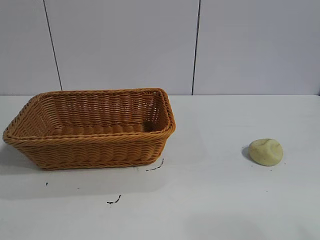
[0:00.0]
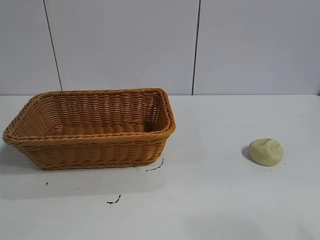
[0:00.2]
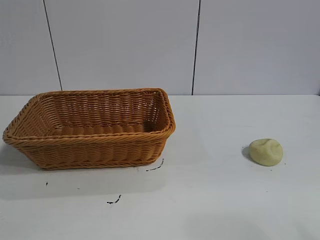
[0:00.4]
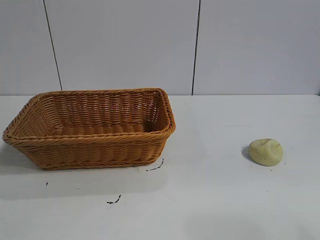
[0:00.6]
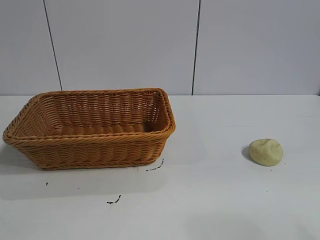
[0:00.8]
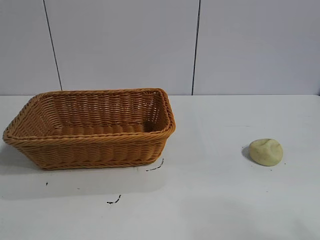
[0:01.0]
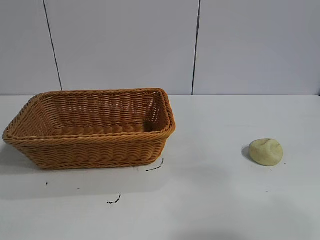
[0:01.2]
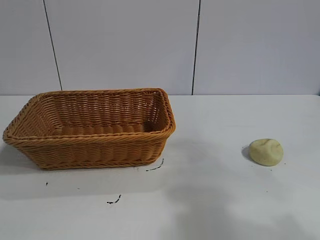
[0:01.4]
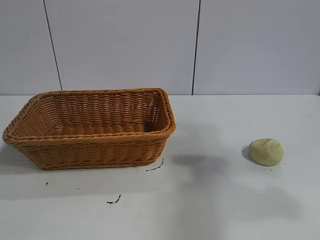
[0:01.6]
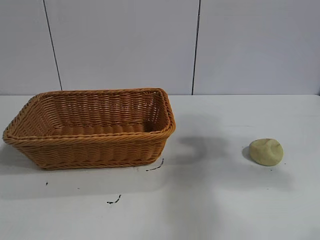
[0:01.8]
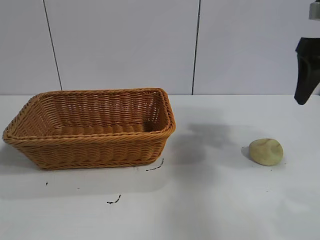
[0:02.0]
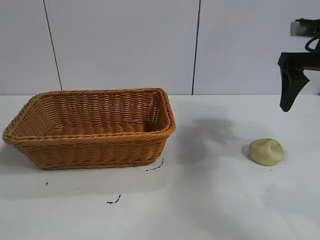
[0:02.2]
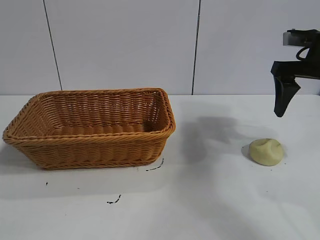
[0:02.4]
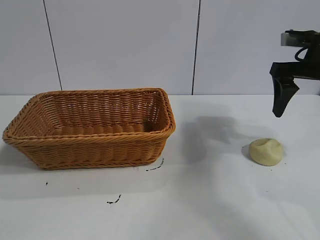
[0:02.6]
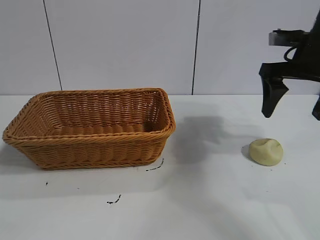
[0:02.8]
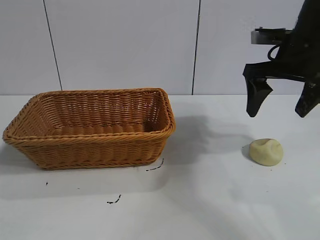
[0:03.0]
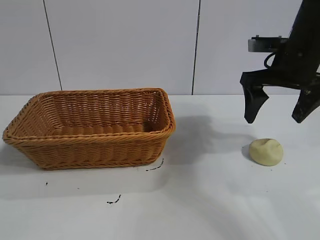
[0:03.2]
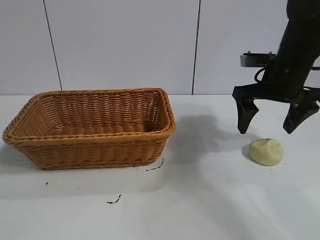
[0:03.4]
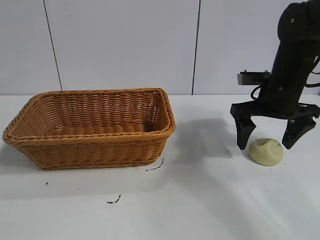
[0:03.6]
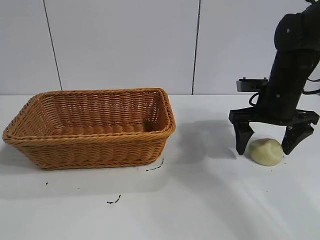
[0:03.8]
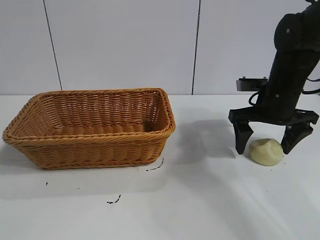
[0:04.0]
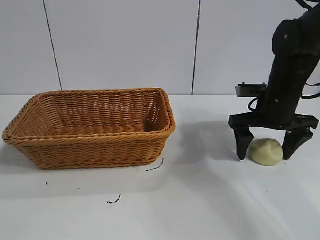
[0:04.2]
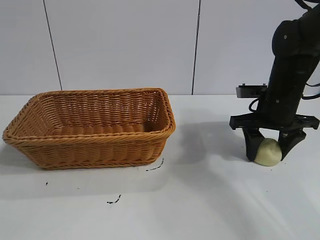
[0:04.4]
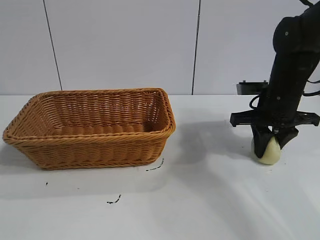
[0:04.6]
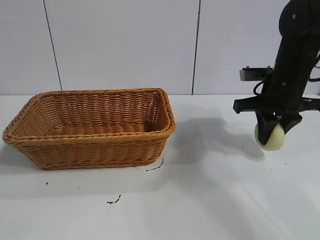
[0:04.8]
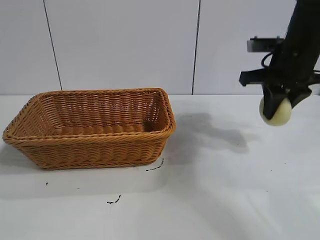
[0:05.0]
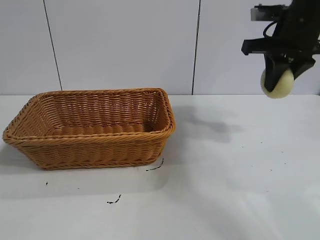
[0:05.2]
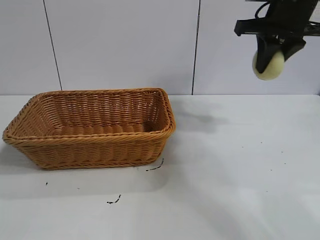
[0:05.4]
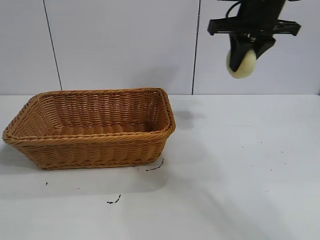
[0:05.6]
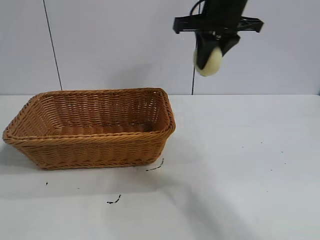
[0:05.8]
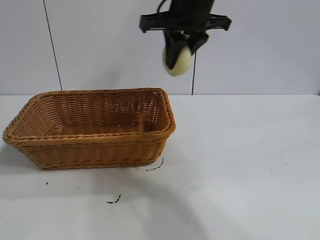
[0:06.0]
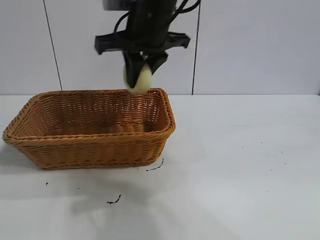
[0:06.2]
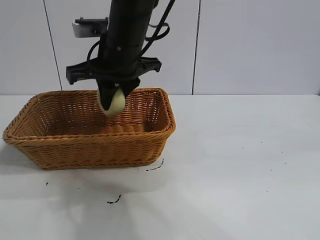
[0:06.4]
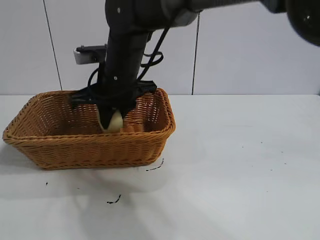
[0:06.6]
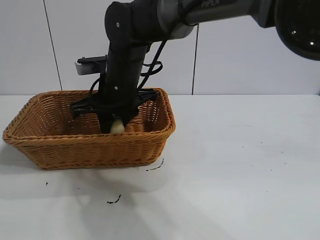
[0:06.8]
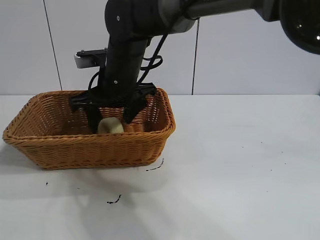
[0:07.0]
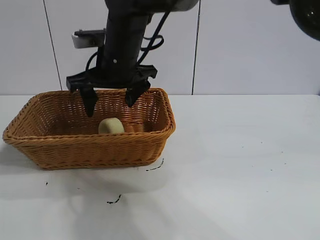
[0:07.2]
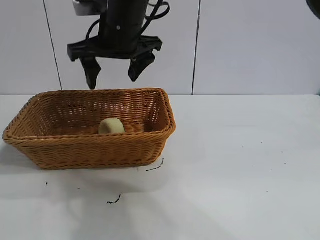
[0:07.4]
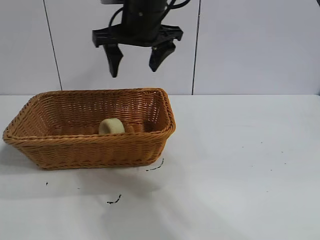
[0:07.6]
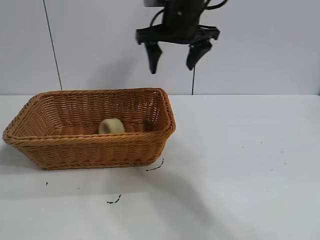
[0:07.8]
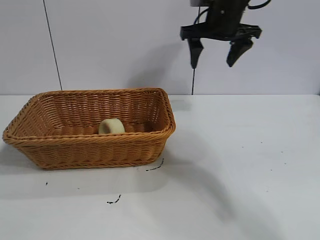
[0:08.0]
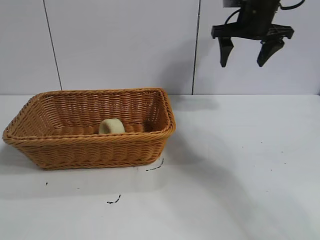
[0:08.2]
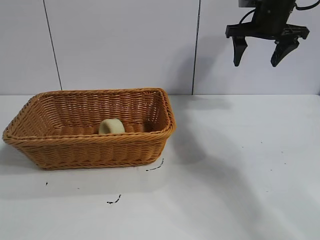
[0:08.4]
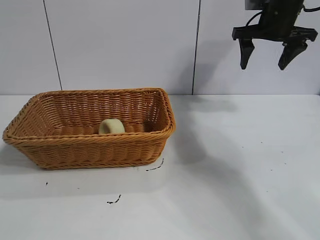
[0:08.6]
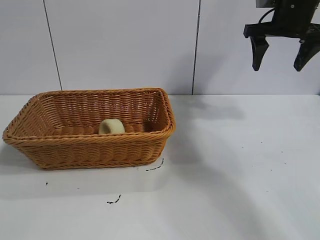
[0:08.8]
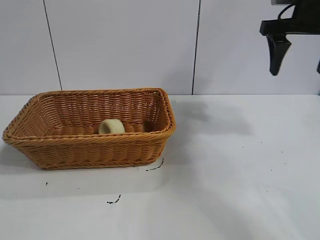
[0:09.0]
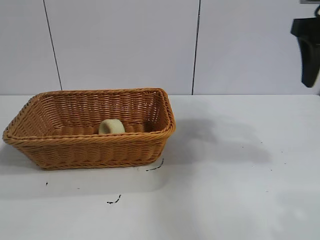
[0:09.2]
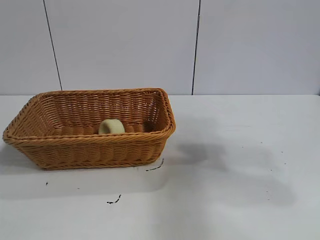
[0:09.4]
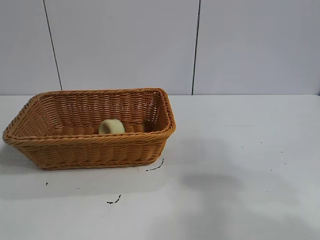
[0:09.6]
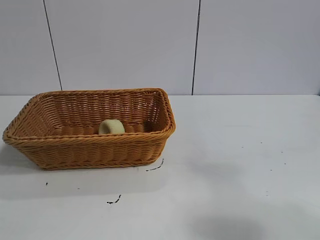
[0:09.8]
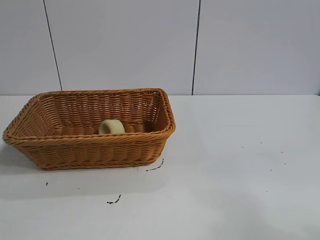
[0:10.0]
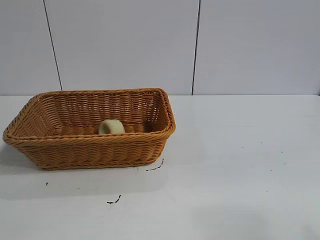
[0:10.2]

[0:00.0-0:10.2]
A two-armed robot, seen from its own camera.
Task of the whole recording: pick up the egg yolk pastry and put it into the basket.
Step, 0.8 to 4.4 s: Grasp egg yolk pastry with right gripper.
Step, 4.8 to 7.2 s: Place the egg yolk pastry in the basket with right gripper.

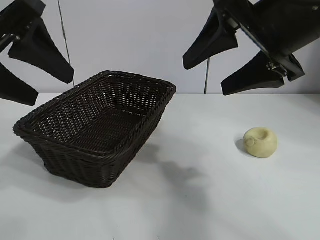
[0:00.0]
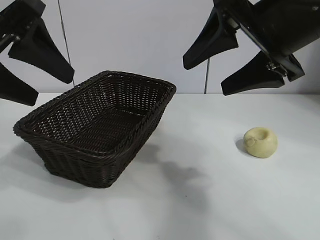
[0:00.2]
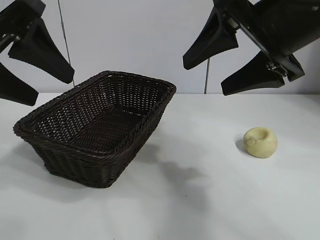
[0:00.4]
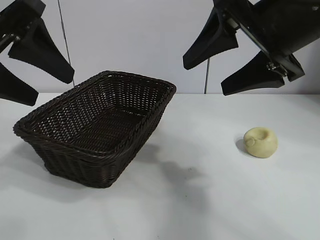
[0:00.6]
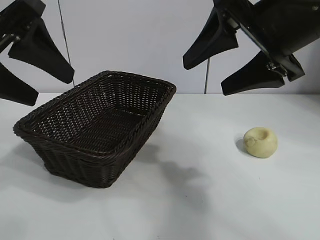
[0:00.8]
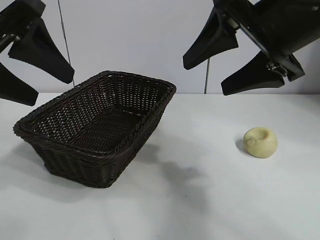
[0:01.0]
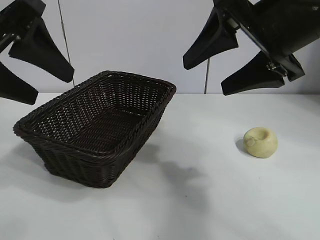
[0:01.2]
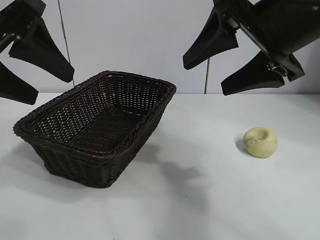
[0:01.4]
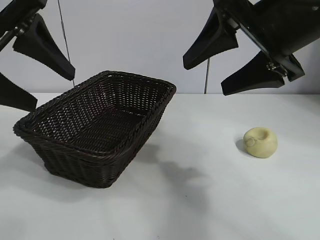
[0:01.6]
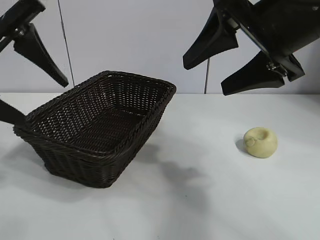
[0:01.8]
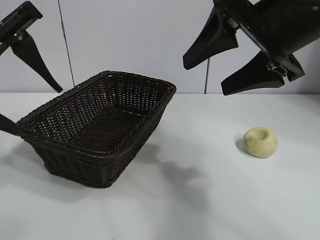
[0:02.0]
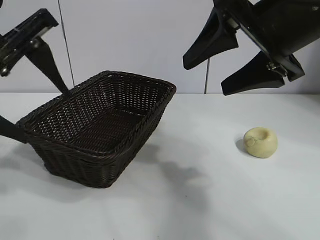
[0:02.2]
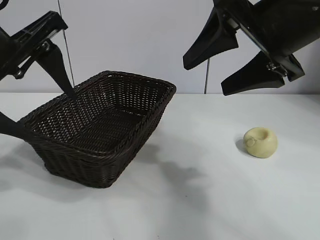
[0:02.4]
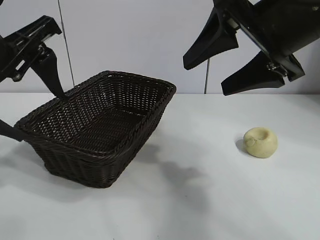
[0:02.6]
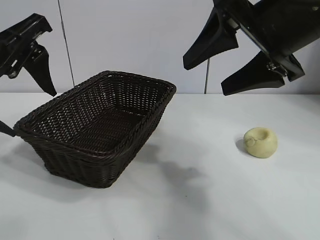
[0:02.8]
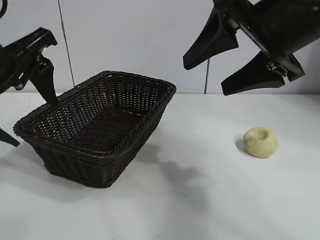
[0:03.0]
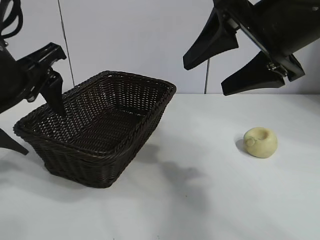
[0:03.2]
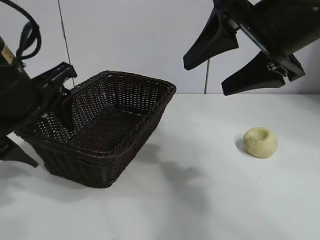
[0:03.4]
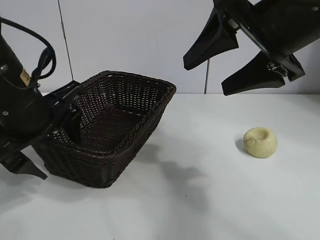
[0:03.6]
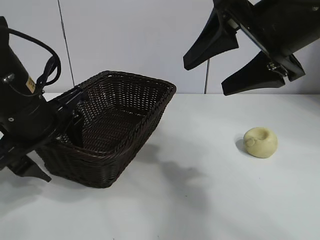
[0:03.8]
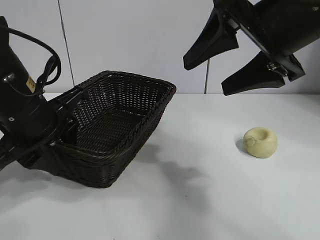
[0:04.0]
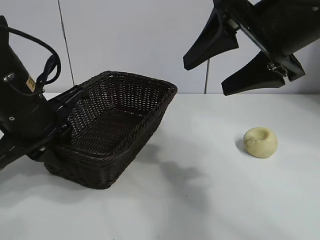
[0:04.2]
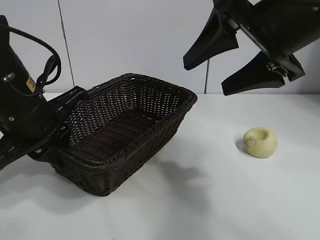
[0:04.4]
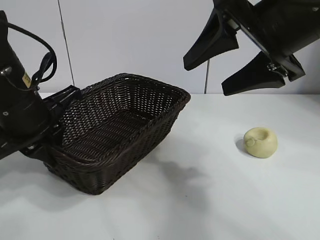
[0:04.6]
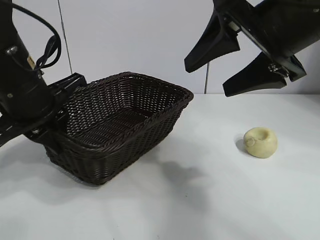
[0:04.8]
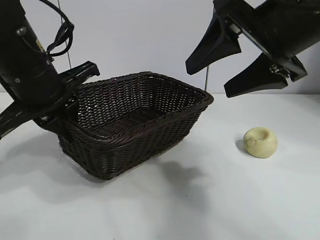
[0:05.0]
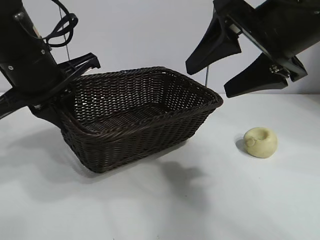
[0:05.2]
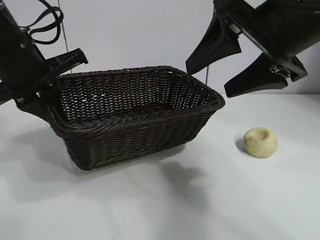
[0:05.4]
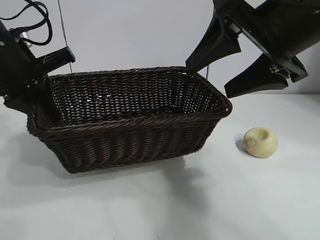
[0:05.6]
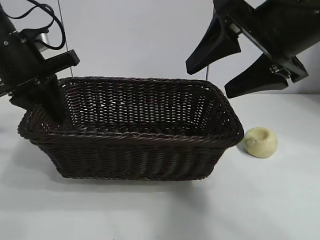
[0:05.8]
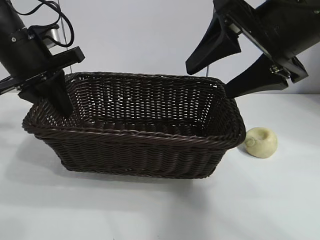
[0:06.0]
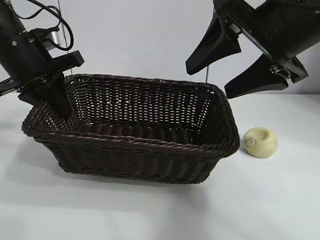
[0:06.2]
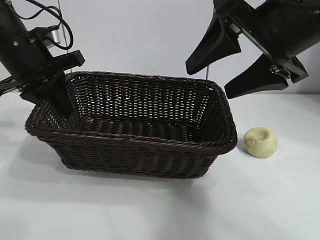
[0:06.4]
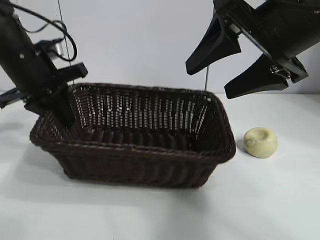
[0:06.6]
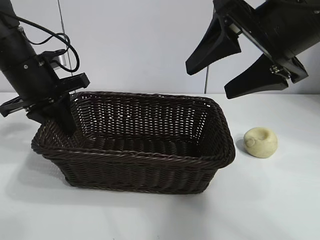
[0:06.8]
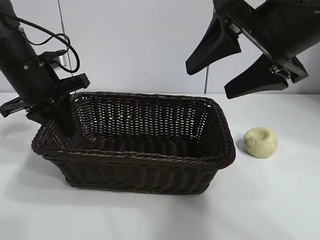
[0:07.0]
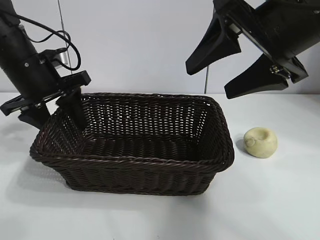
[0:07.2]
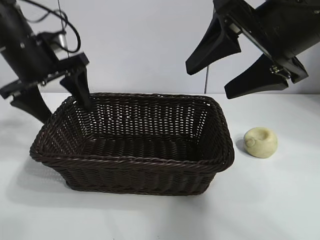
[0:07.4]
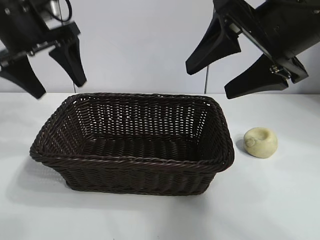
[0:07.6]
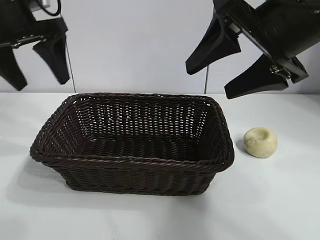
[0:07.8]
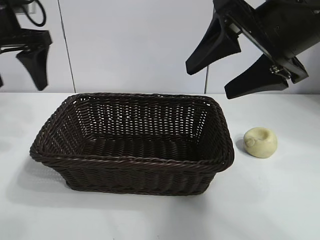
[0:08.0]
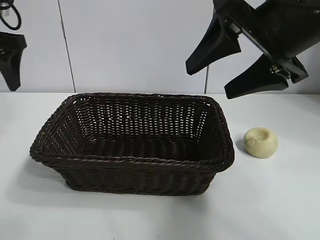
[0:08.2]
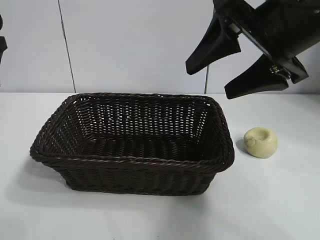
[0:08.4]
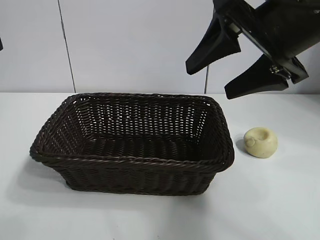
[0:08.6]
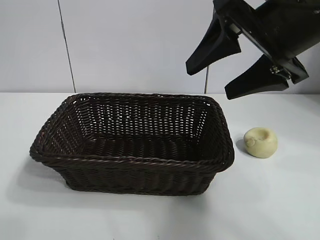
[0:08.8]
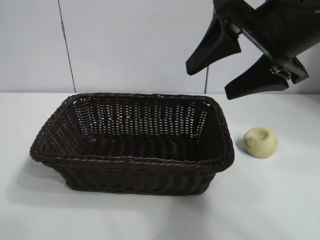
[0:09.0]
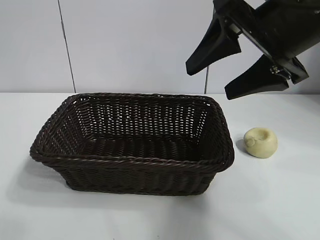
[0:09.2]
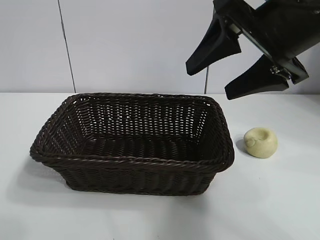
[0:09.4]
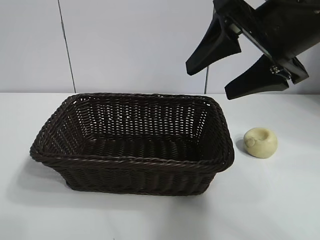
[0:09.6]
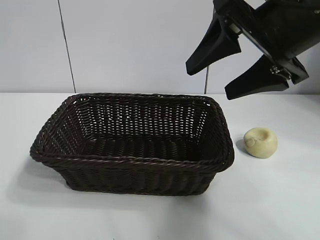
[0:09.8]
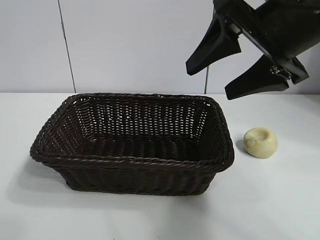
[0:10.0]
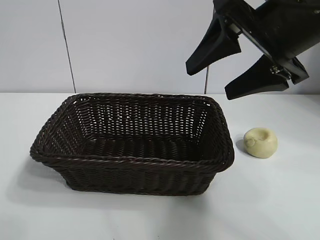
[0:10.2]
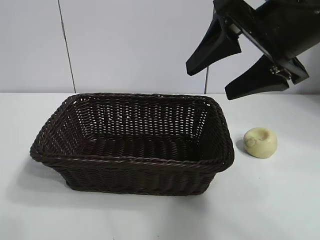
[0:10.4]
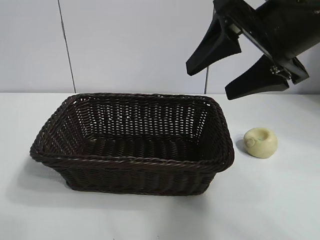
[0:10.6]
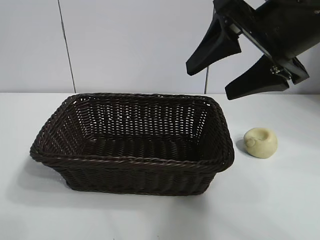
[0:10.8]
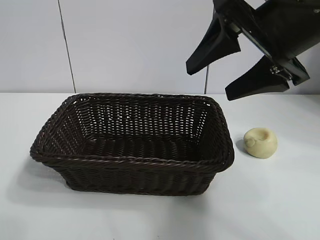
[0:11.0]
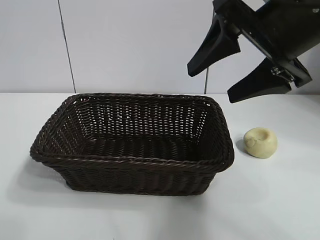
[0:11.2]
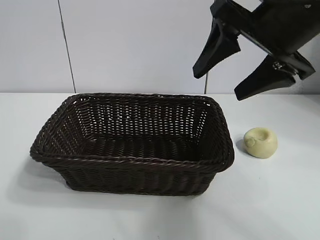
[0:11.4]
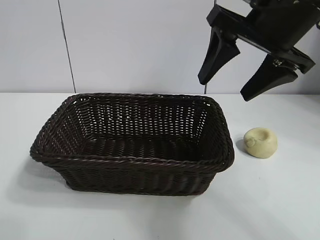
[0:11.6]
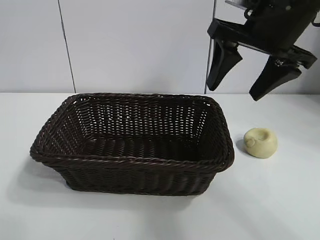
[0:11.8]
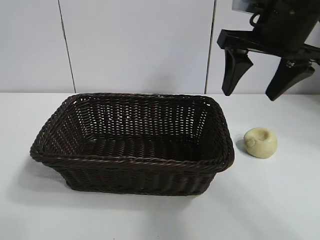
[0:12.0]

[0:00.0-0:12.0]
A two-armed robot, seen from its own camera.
Task of the whole recording: pick up the egg yolk pastry and put it into the basket.
Step, 1.6 to 4.2 s: Grasp the basket with left gripper.
Step, 4.6 to 7.2 s: Place the basket in the center of view with left gripper.

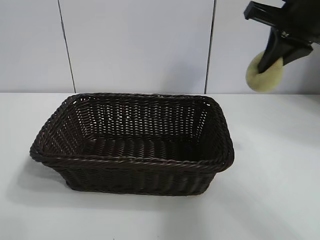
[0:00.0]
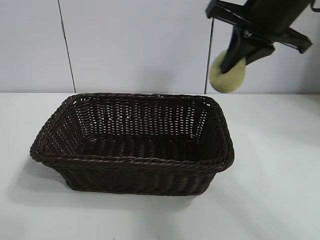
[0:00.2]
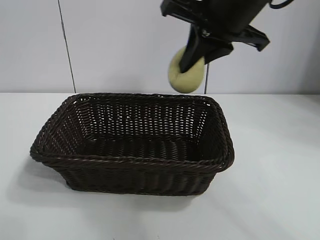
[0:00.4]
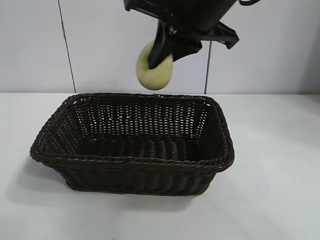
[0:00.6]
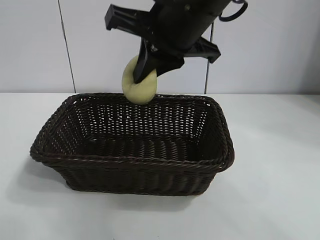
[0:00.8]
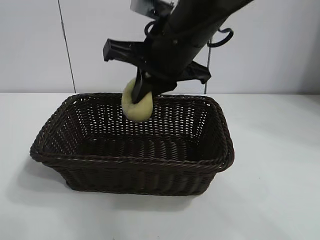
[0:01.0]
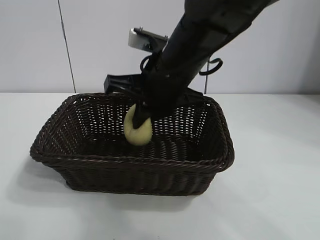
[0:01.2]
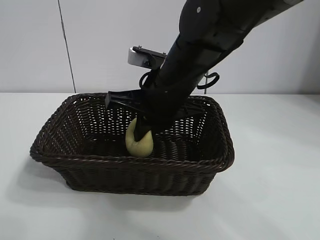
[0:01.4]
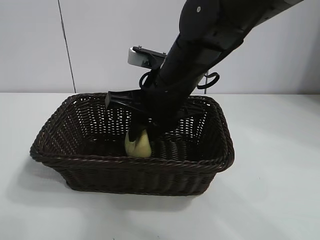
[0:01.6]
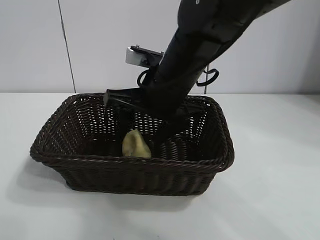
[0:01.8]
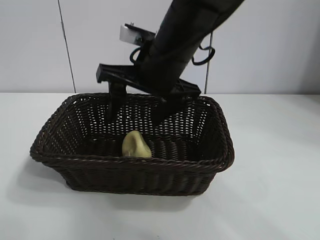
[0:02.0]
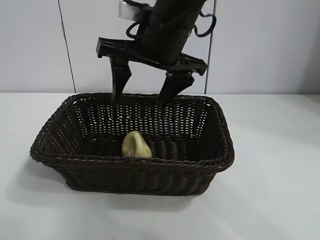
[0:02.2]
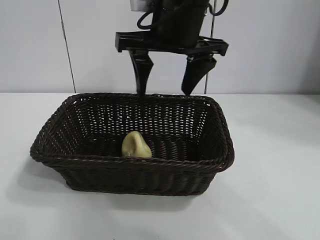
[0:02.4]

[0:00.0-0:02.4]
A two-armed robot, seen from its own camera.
Task of the whole recording: pick up the egg yolk pastry and put it into the basket.
Step, 0.0 to 1.8 s: Place the egg yolk pastry in the basket with right gripper.
